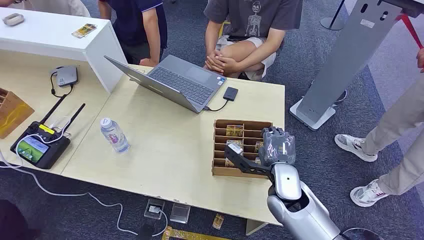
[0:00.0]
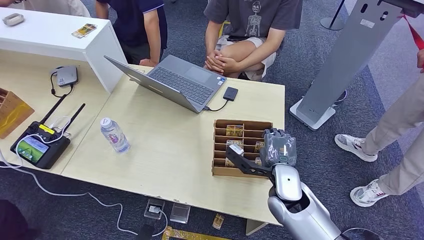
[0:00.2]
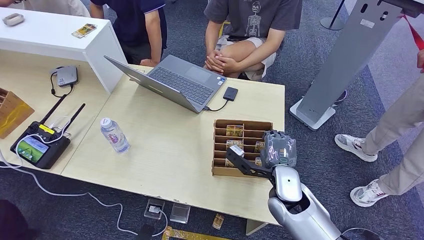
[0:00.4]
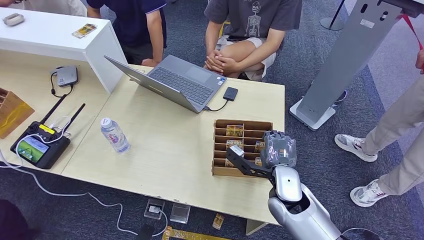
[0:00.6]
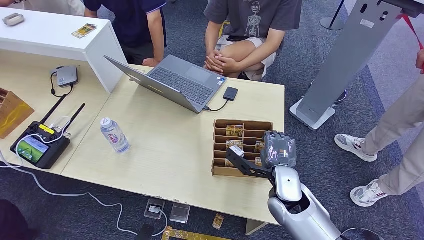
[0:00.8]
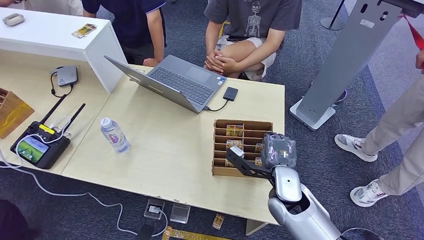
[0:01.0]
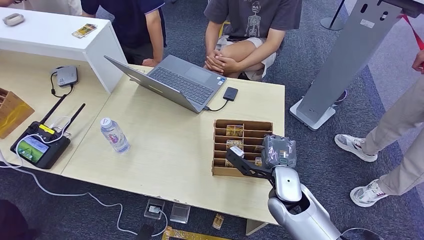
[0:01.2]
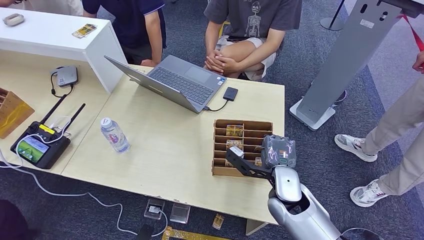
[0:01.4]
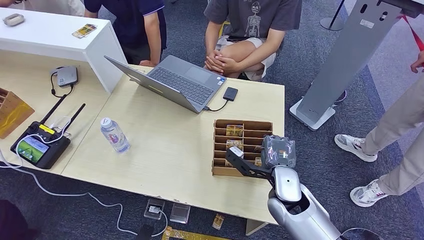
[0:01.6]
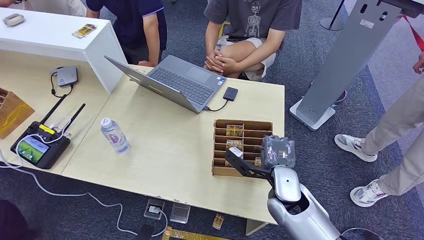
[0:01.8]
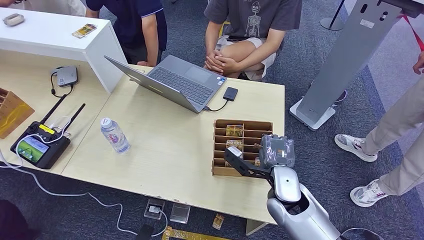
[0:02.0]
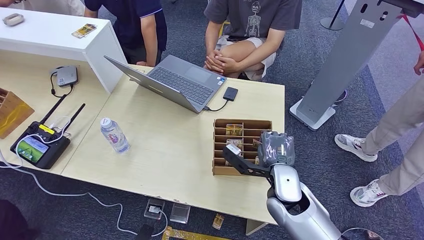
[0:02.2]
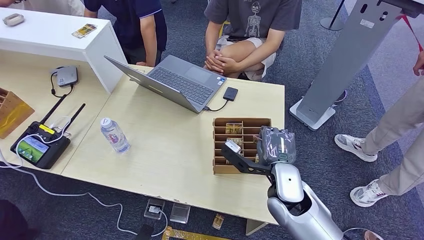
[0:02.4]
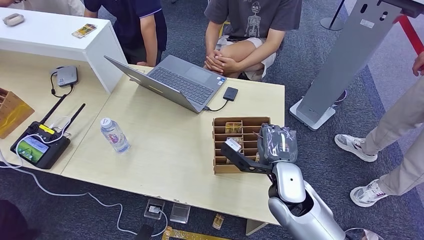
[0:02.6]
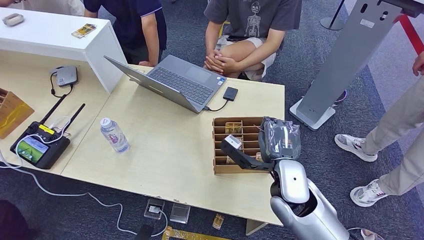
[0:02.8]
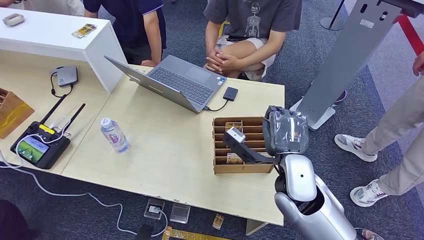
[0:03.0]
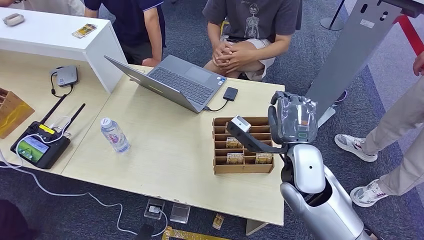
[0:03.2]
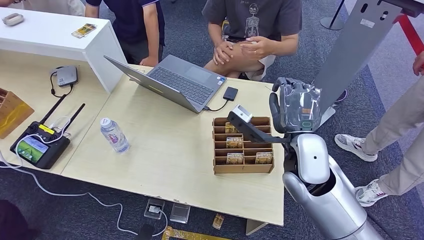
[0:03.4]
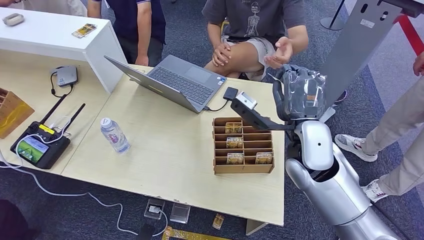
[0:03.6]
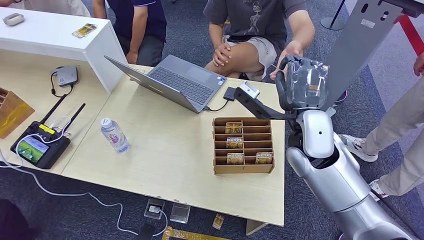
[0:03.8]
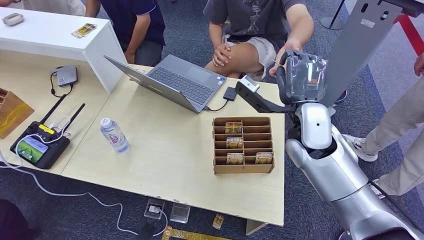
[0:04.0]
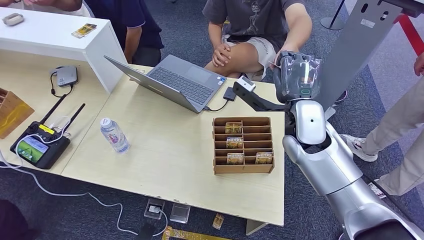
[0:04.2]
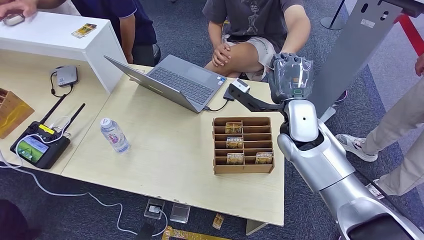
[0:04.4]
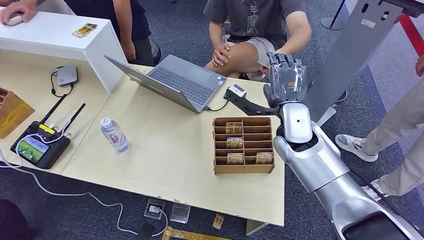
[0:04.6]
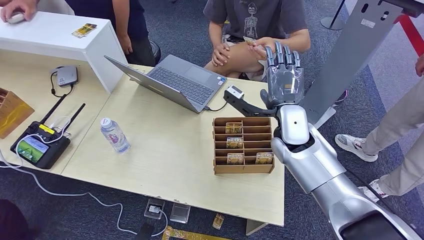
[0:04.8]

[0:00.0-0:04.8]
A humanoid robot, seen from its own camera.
Step, 0:00.0 to 0:02.4: Pick up the room card from the card holder.
Step, 0:03.4 to 0:04.8: Hand the room card to the target.
0:01.6 to 0:03.2: The right hand heads upward, covering roughly 10 cm.
0:03.2 to 0:04.8: The right hand heads forward, covering some 10 cm.
